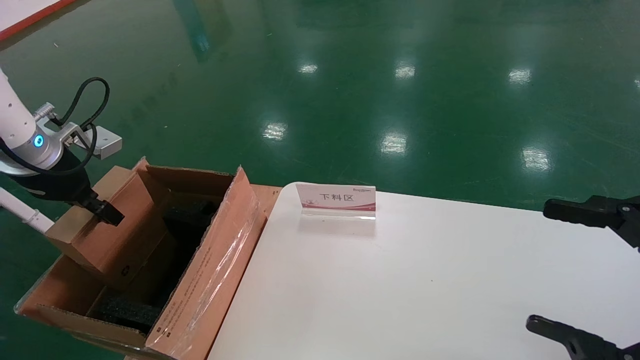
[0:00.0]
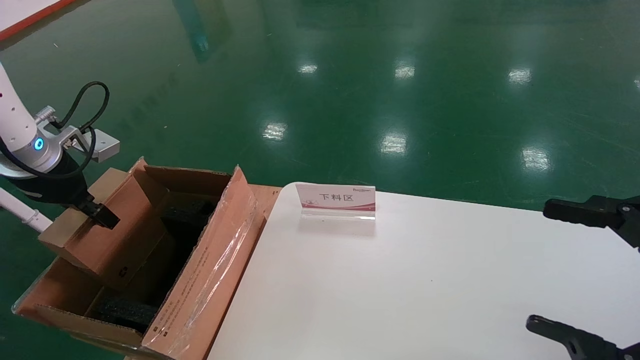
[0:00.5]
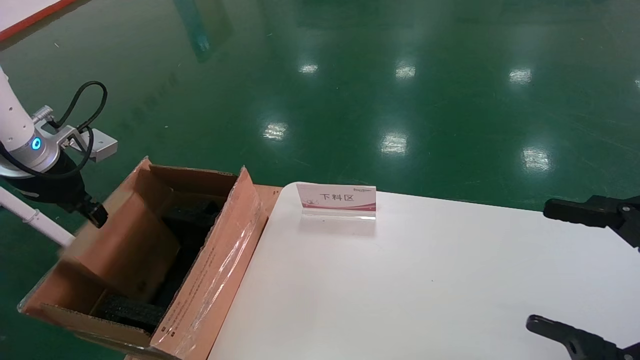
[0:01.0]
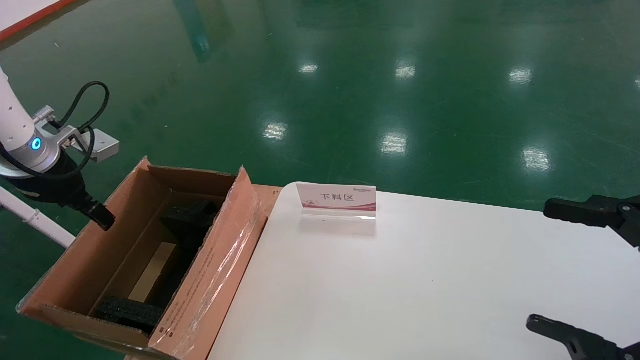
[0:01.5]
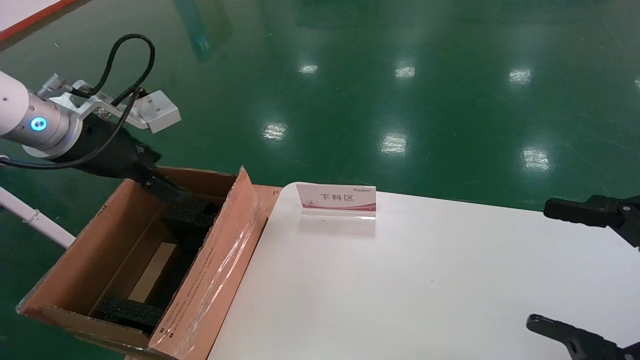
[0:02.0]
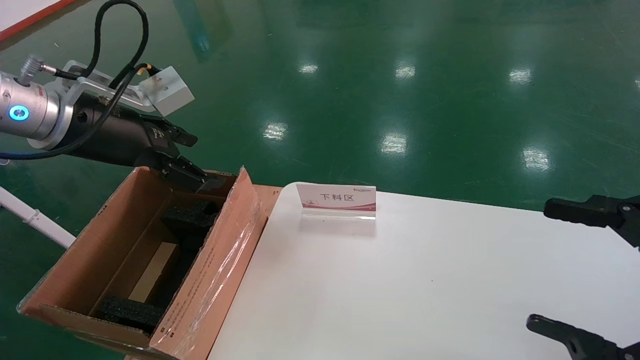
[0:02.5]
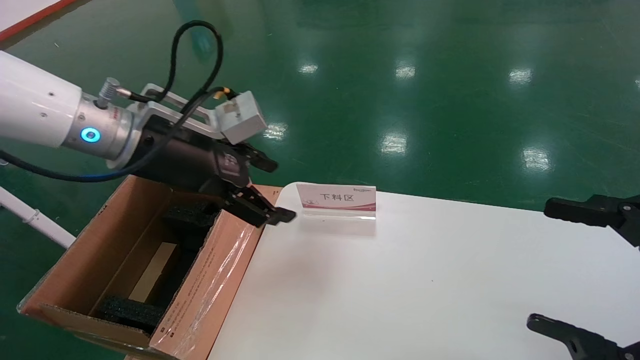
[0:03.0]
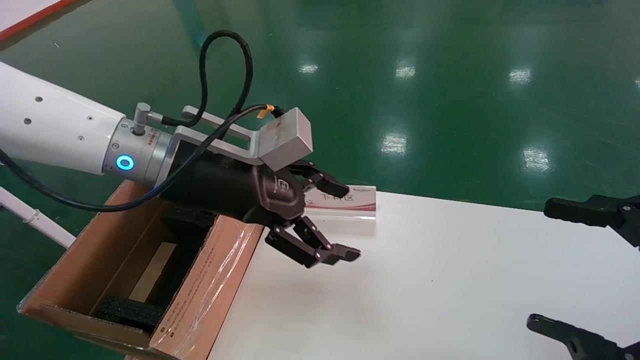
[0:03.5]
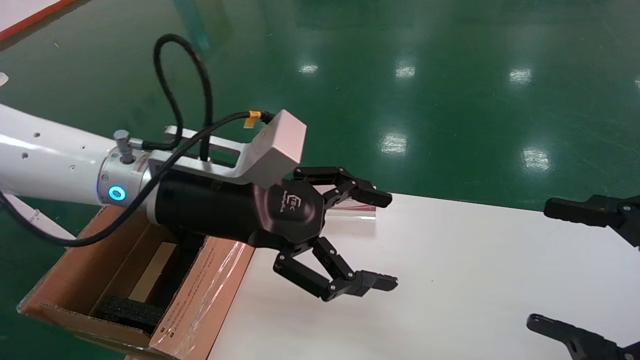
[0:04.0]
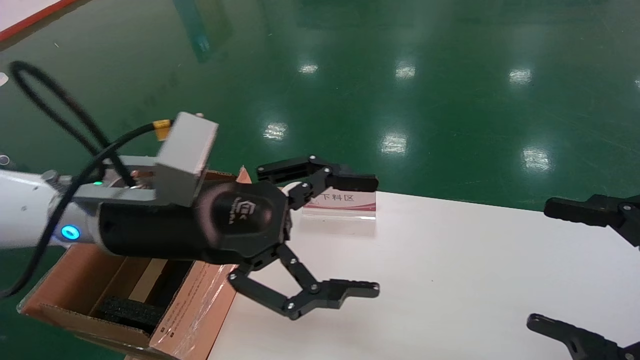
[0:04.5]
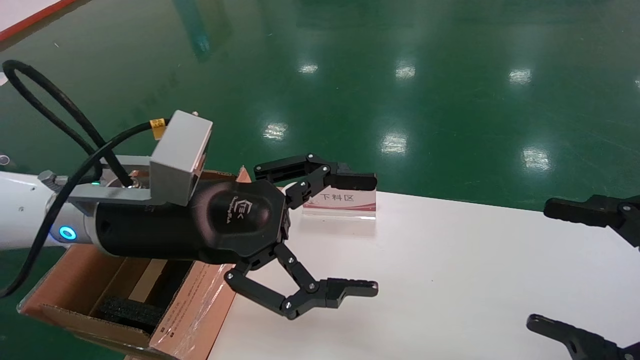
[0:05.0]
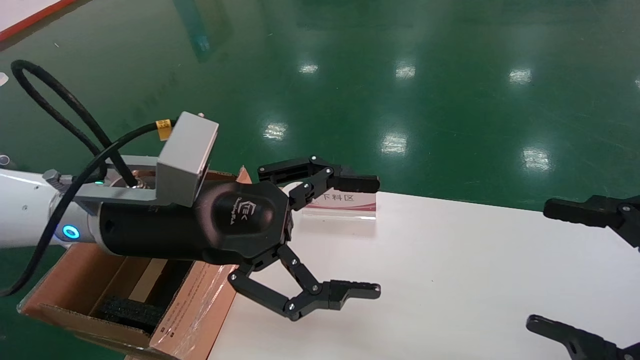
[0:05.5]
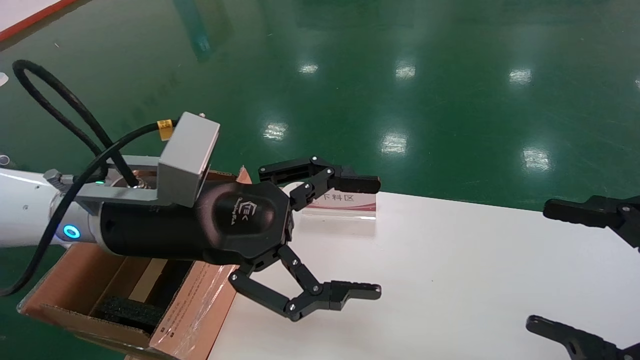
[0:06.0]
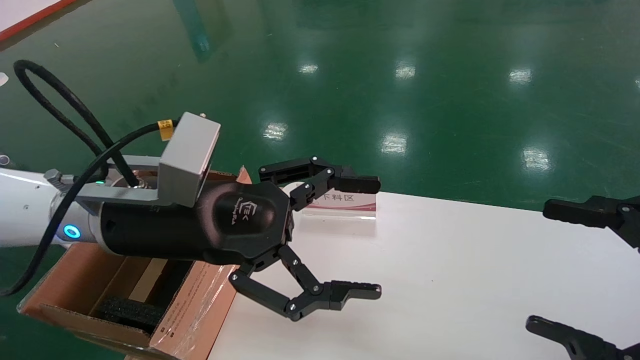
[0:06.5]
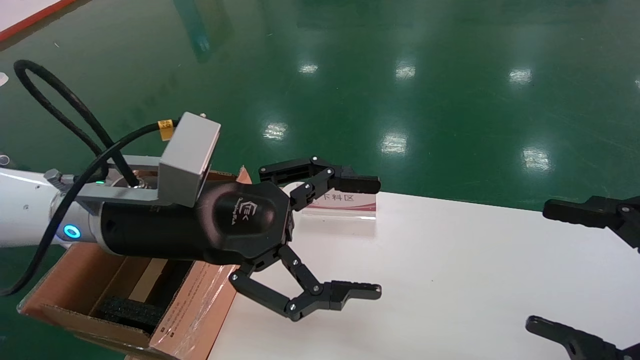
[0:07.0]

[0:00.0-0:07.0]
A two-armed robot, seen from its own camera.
Task of the whole recording: pick up the small cardboard box and load it into the large cardboard box.
0:00.0 to 0:02.0: The left gripper travels to the right by some 10 cm, and opens.
0:02.0 to 0:03.5: The left gripper moves to the right, about 15 cm.
0:03.5 to 0:05.0: The left gripper goes about 5 cm backward.
0:05.0 to 0:07.0: The two grippers keep their place.
